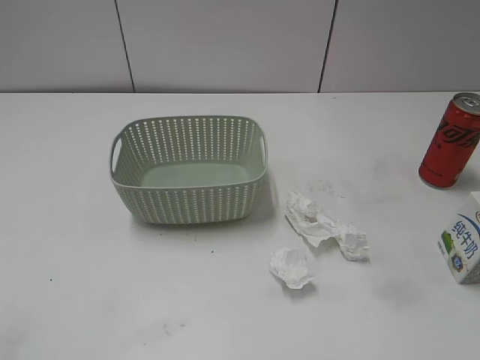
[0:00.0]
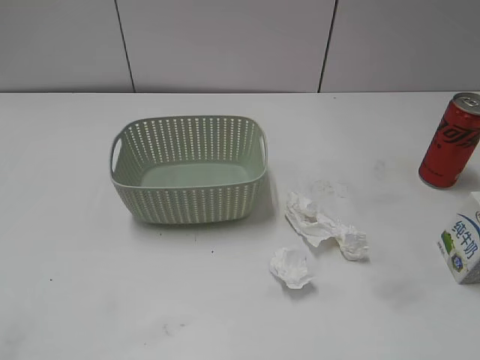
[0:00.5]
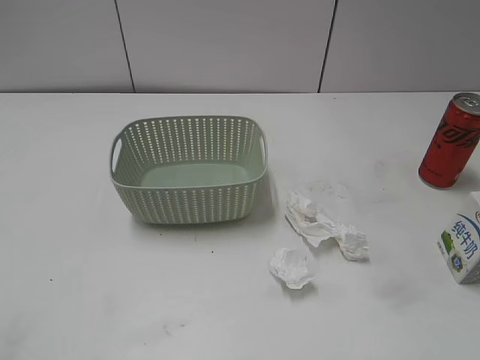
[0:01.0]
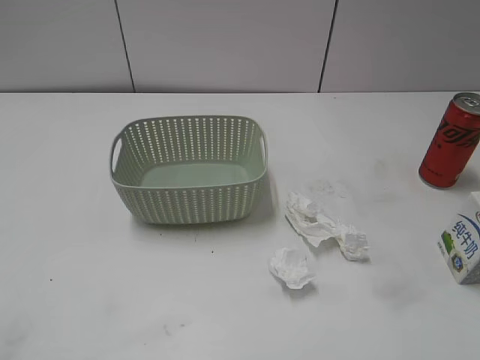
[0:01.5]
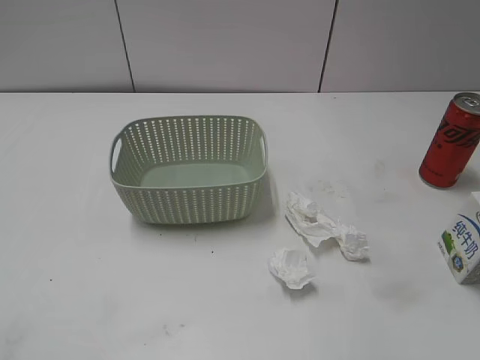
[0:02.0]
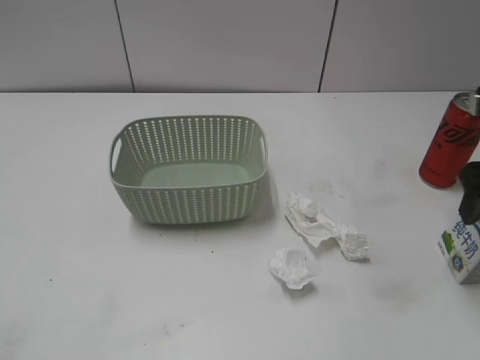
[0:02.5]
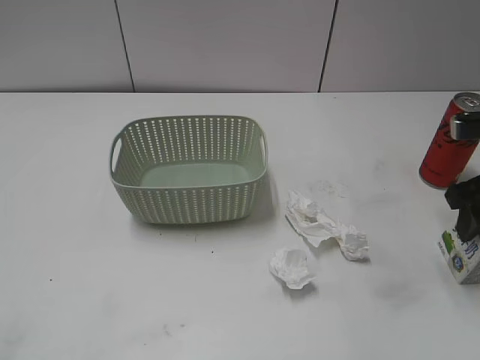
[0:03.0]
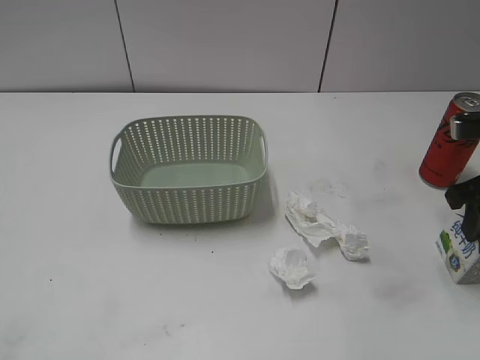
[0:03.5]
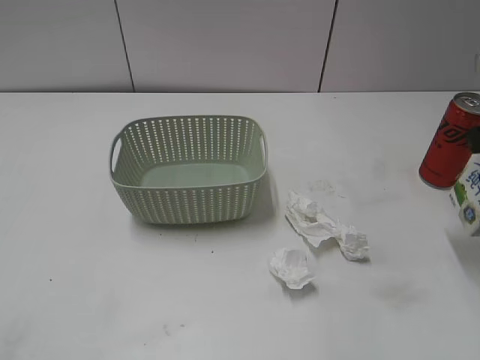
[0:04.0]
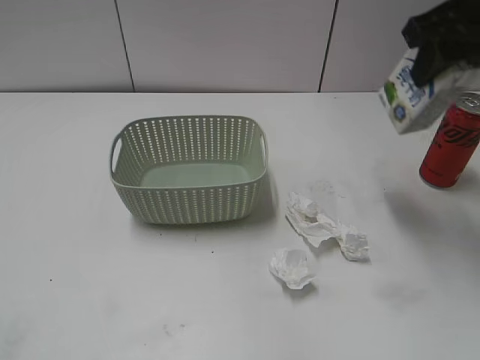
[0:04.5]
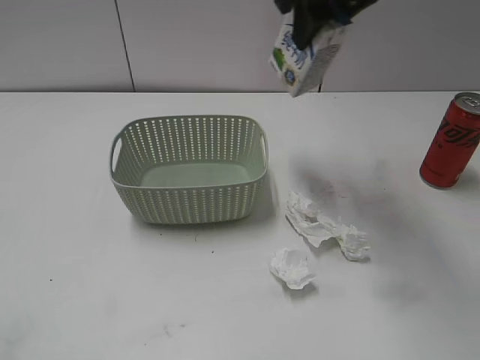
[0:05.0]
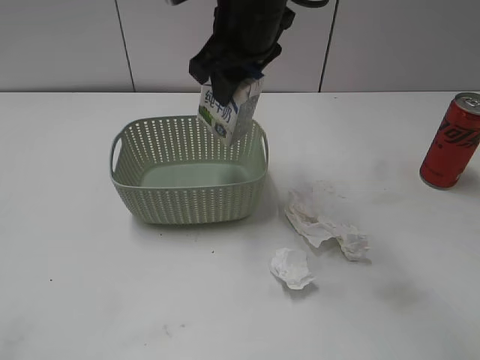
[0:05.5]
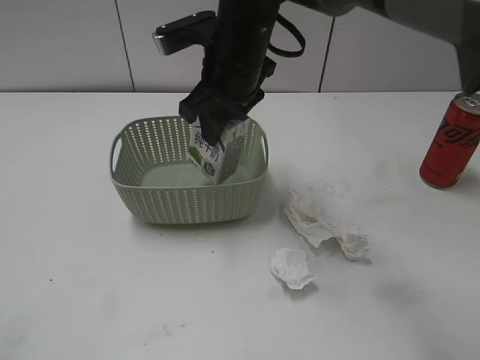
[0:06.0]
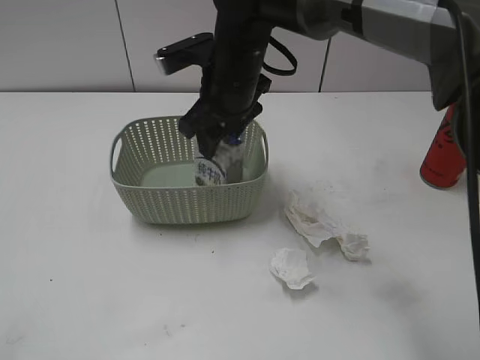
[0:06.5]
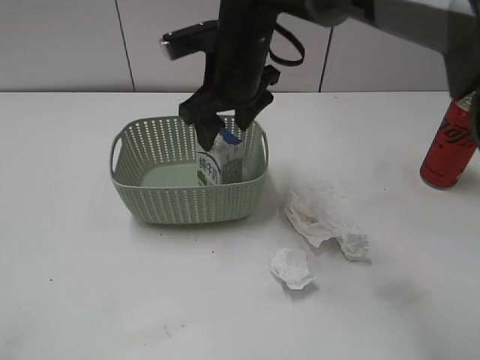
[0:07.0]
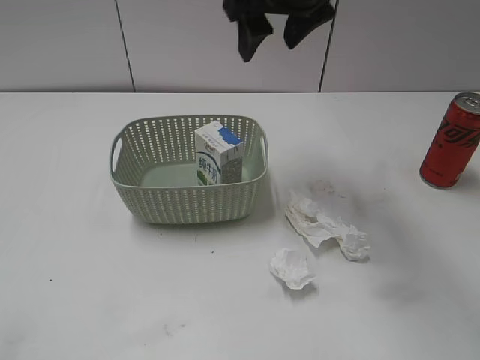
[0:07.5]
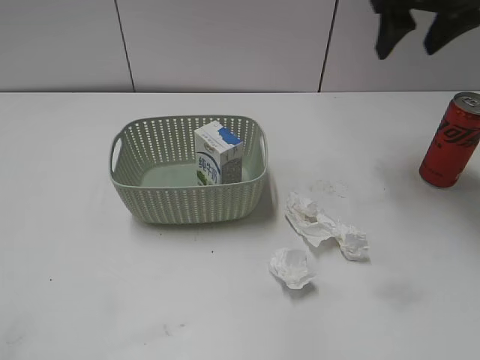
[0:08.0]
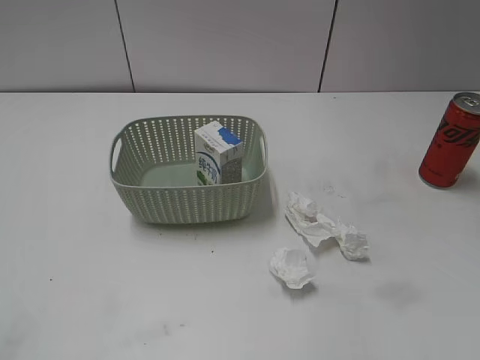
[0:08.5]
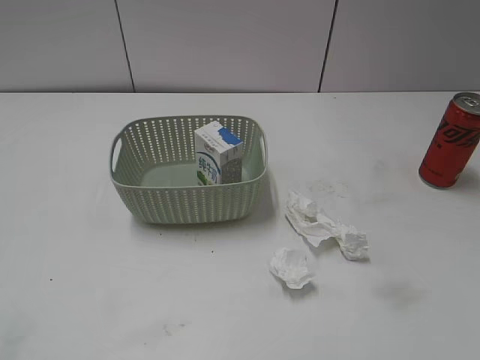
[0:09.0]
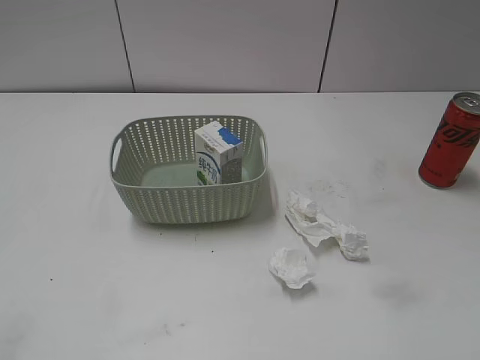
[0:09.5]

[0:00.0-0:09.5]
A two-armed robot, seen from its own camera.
Step, 0:02.5 to 0:03.0: Grasp the milk with right gripper.
Step, 0:03.5 to 0:07.0: Place the milk in the basket with right gripper.
0:02.0 to 0:04.0: The right gripper goes roughly 5 cm forward, reaches about 10 cm downward, then returns, and closes up.
0:04.0 to 0:05.5: The right gripper goes approximately 30 cm to the left.
0:05.5 to 0:07.5: The right gripper goes downward and returns, approximately 10 cm each way, and opens its fingers.
0:07.5 to 0:09.5: The right gripper shifts about 40 cm backward and to the right.

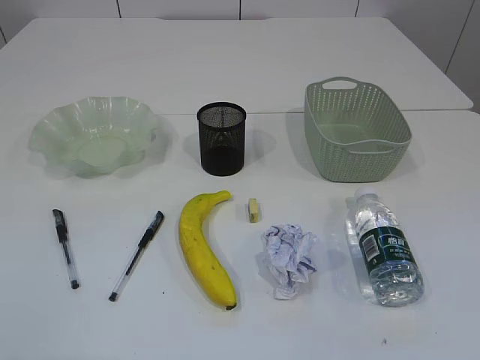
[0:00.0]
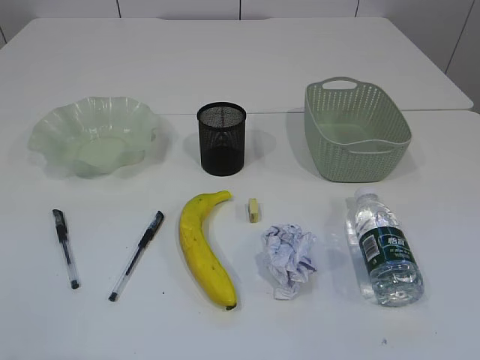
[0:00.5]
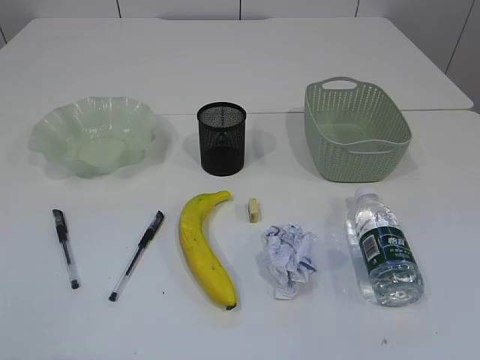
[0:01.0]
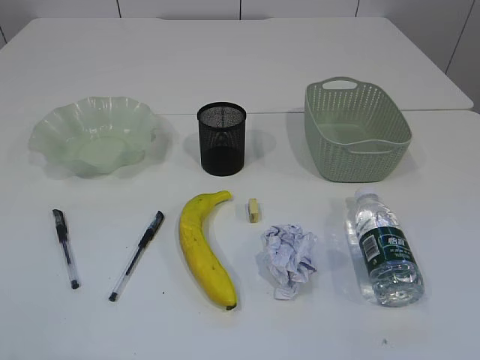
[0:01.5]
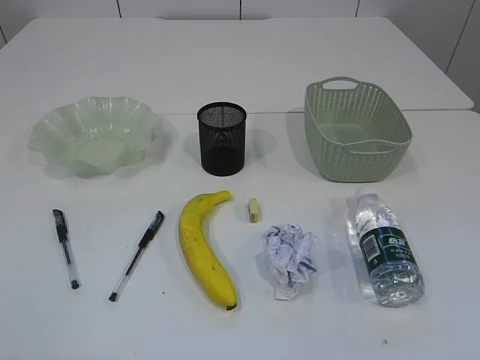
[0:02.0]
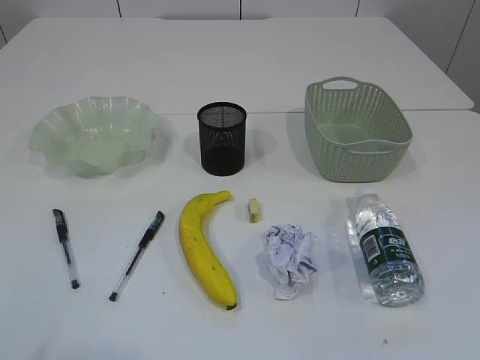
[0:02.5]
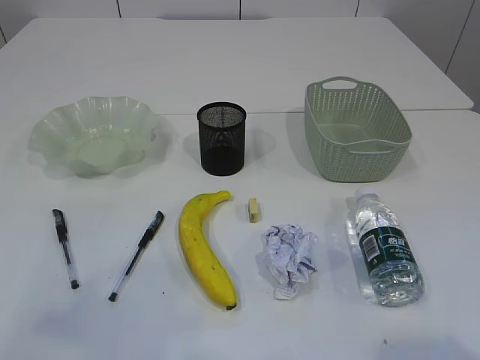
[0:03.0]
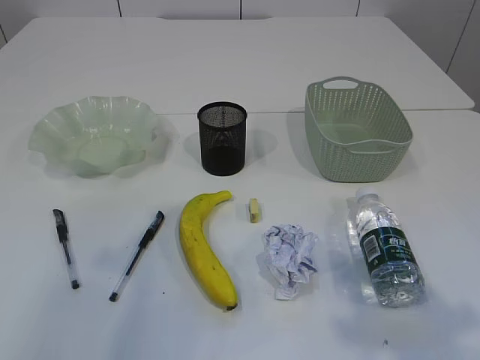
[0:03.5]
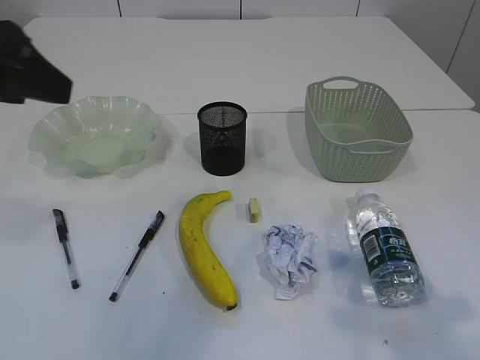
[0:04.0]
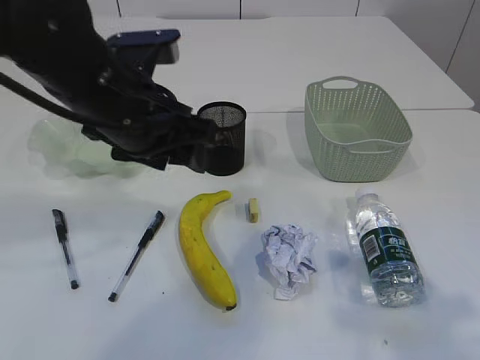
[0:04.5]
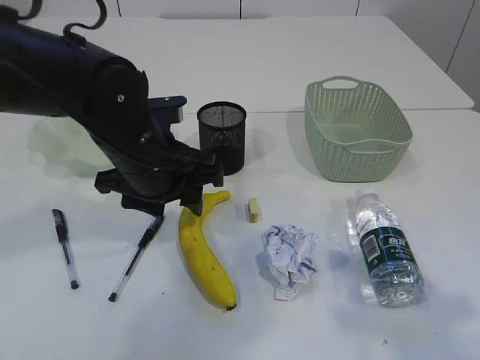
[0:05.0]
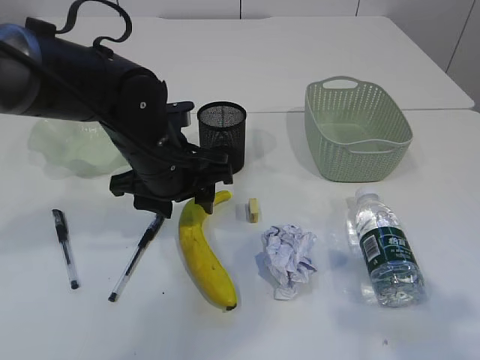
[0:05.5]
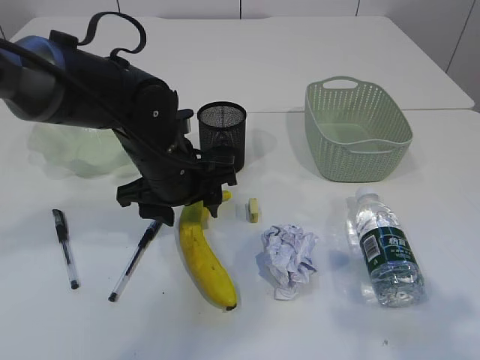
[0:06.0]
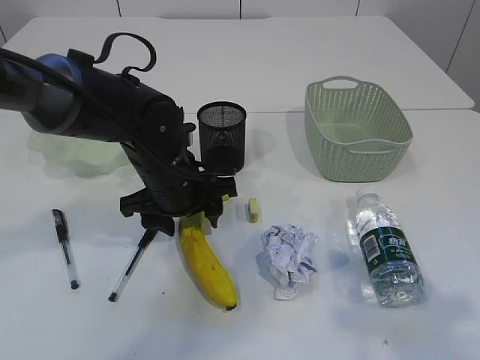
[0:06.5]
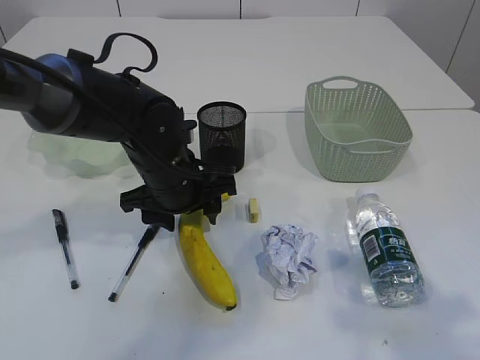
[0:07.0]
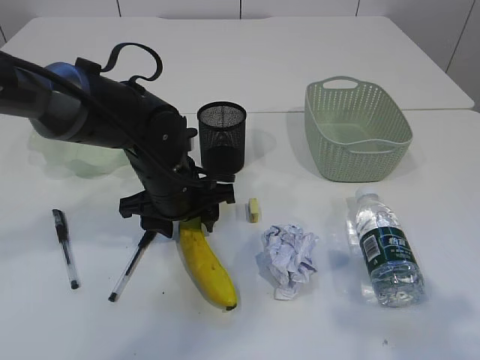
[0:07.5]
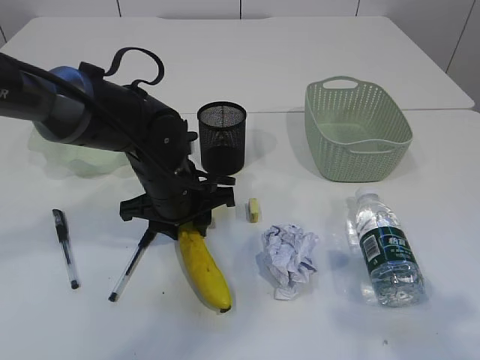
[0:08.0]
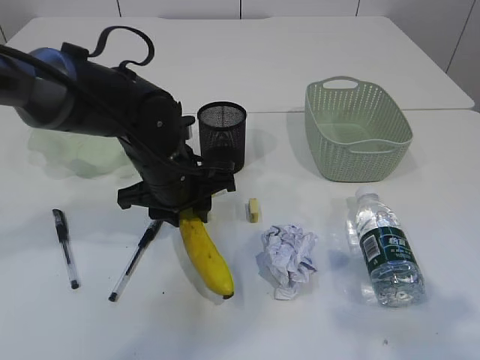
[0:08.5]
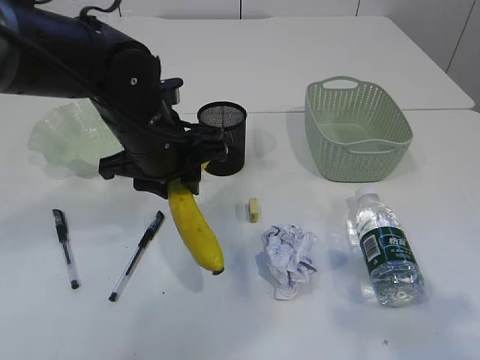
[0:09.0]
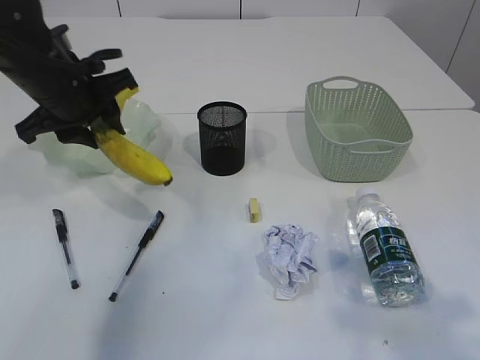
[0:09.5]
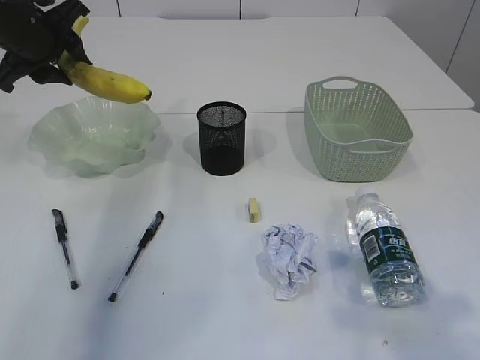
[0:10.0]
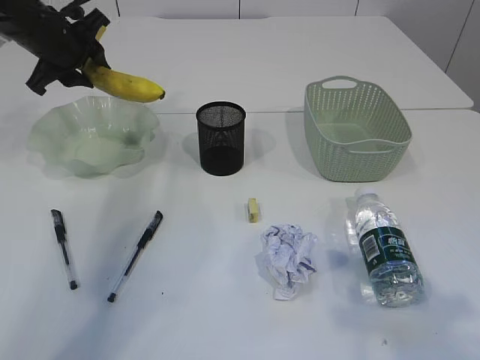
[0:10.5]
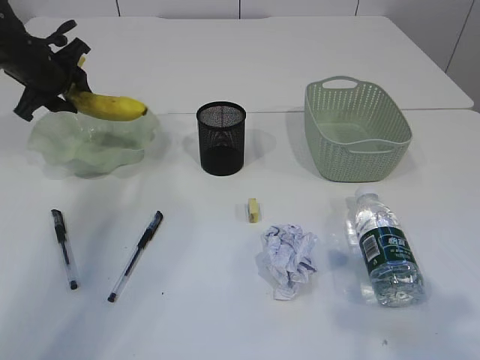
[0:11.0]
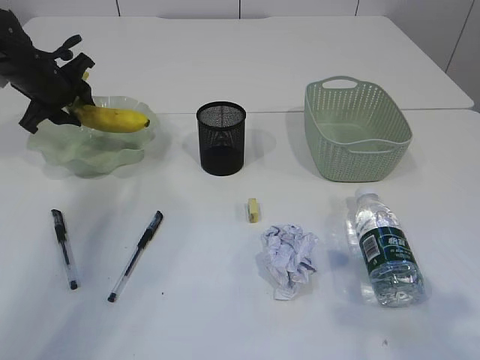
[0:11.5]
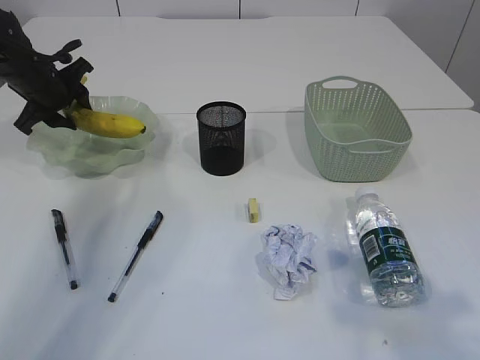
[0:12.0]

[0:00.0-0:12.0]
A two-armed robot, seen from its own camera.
0:02.0 to 0:04.0: The left gripper moves forward and to the right, roughly 25 cm, while the right gripper moves forward and upward, roughly 15 cm.
0:04.0 to 0:06.0: The left gripper goes approximately 25 cm downward, to the right and forward.
0:06.0 to 0:08.0: The grippers stay close to where they were, moving slightly.
0:08.0 to 0:10.0: The left gripper travels to the left, upward and forward by approximately 25 cm.
0:10.0 to 0:12.0: The left gripper heads downward and forward, covering about 10 cm.

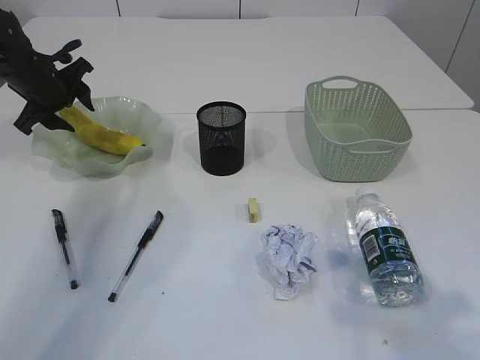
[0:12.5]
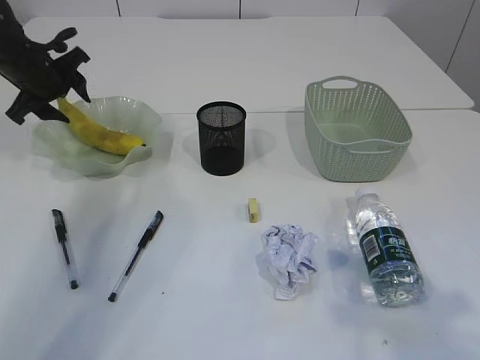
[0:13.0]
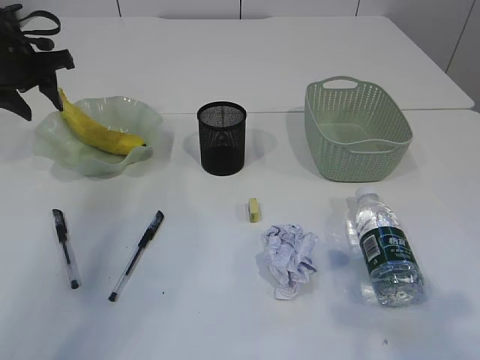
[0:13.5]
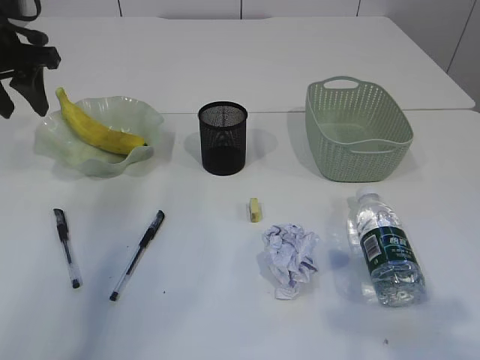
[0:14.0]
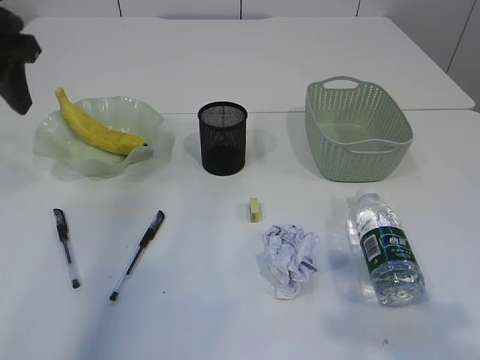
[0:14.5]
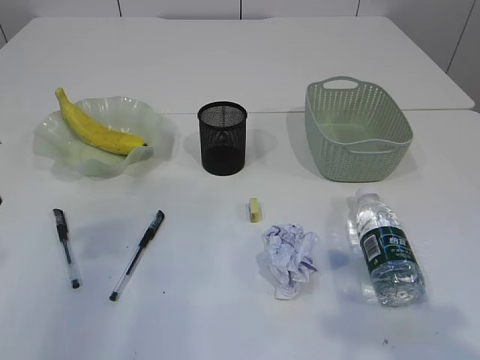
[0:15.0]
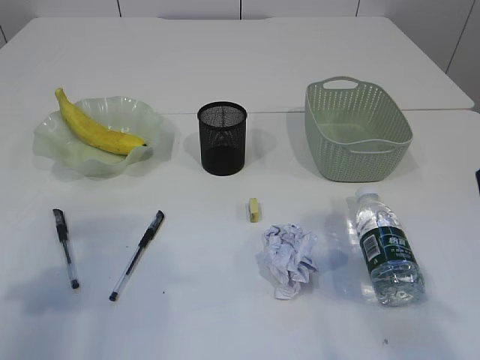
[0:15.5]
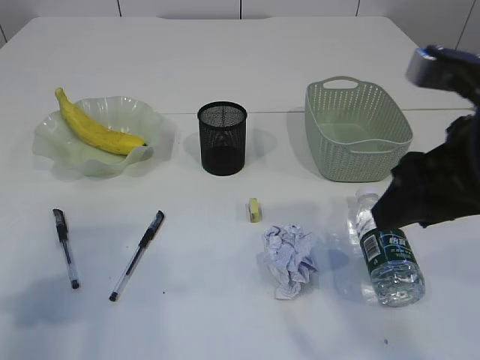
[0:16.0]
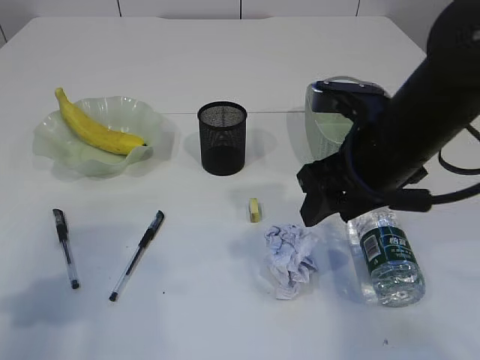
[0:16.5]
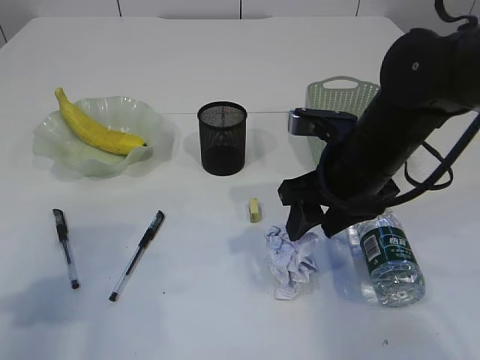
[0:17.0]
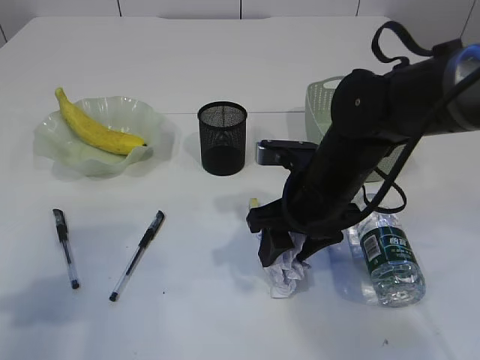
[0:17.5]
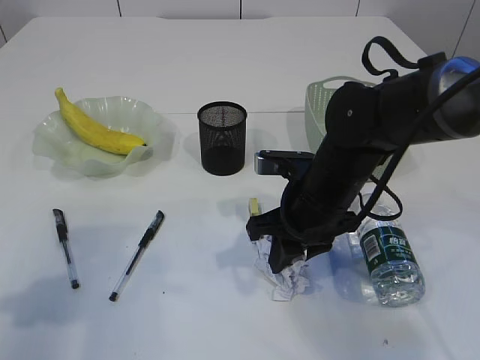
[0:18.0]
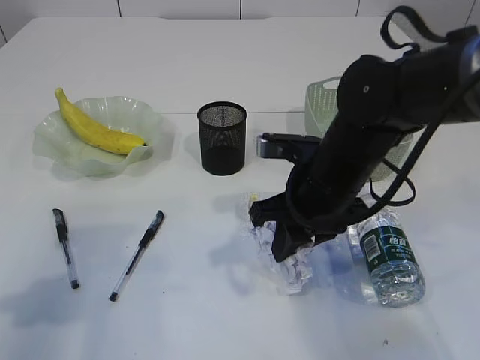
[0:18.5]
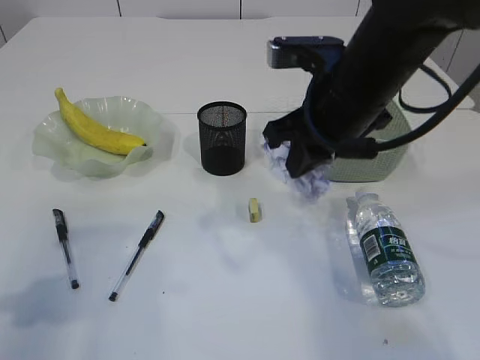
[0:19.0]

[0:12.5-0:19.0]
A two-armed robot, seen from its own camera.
Step, 0:14.0 to 0:18.5: Pick up the waste paper.
0:12.5 to 0:14.5: The left gripper is displaced upward and backward by roughly 20 cm.
0:14.5 to 0:17.0: The left gripper is displaced backward and downward by roughly 20 cm, while the right gripper is displaced forward, downward and to the left by roughly 25 cm.
0:17.0 to 0:19.0: The right gripper travels upward by approximately 5 cm, and closes its fingers.
